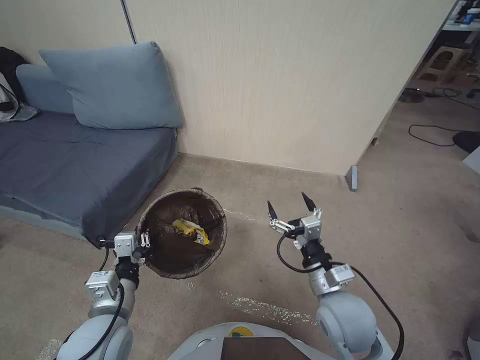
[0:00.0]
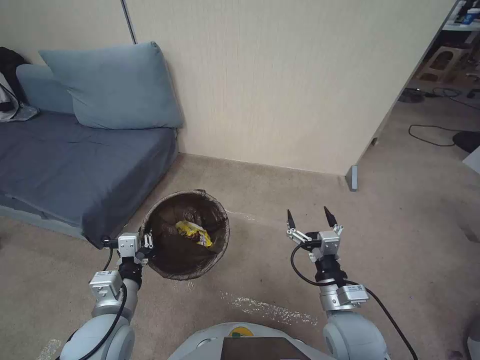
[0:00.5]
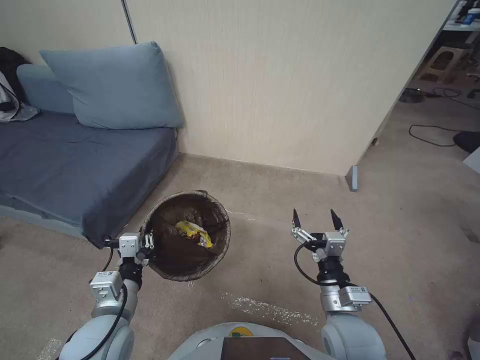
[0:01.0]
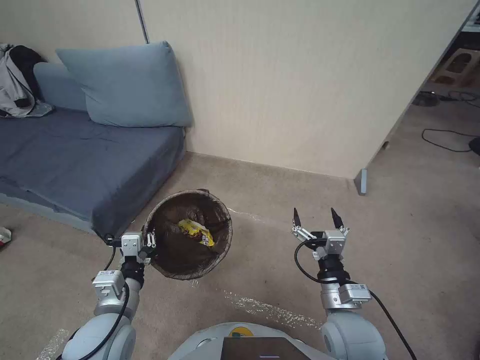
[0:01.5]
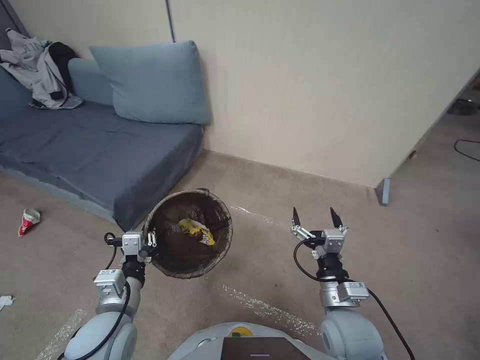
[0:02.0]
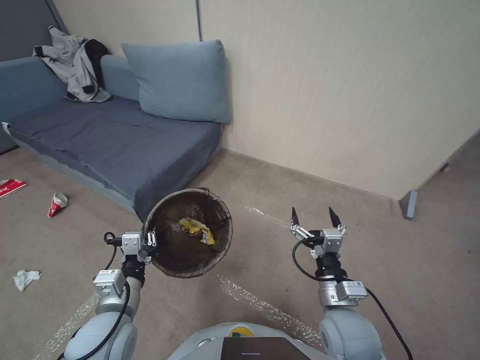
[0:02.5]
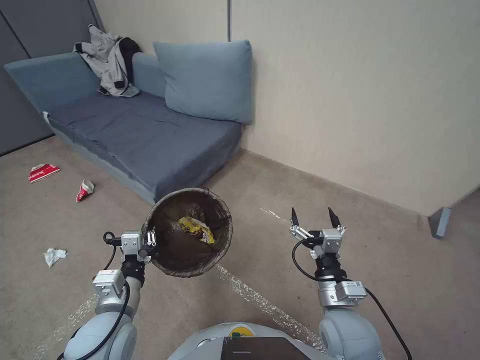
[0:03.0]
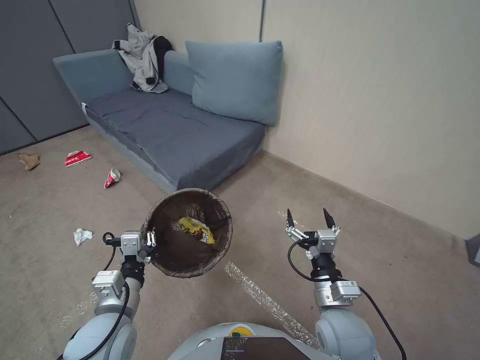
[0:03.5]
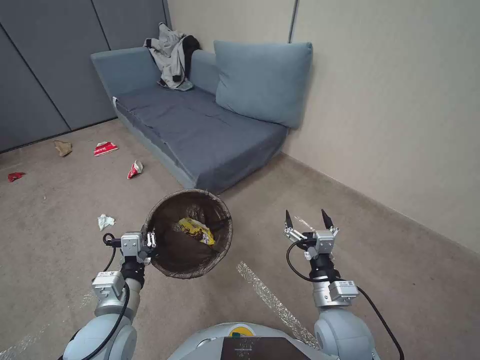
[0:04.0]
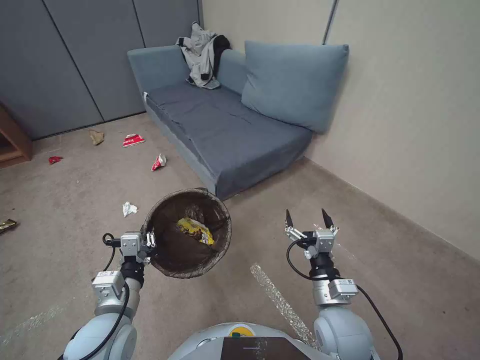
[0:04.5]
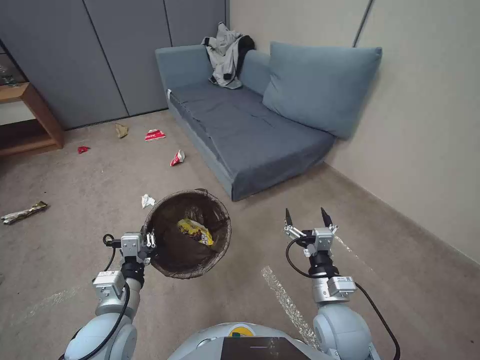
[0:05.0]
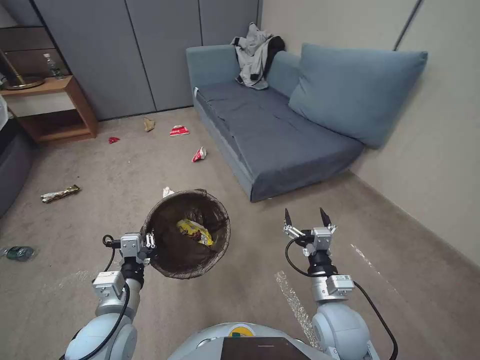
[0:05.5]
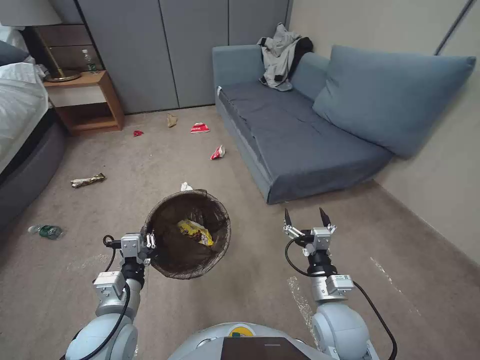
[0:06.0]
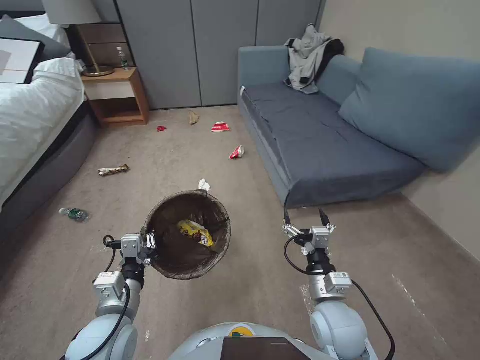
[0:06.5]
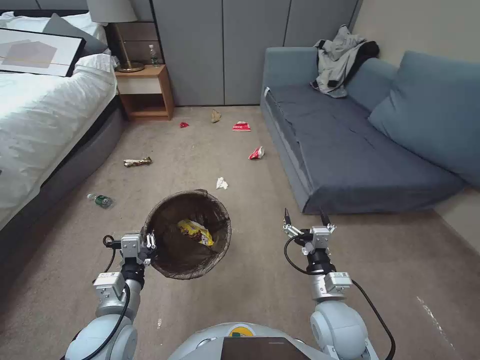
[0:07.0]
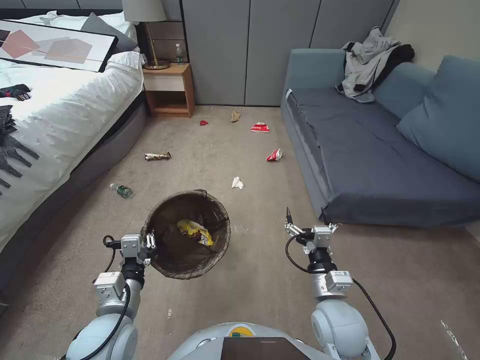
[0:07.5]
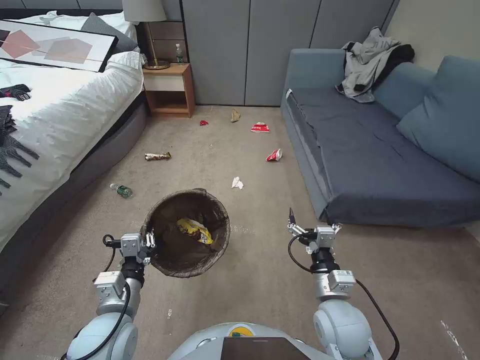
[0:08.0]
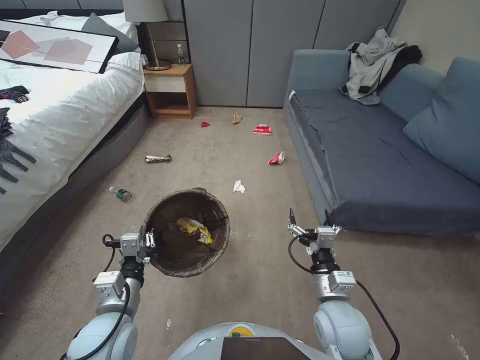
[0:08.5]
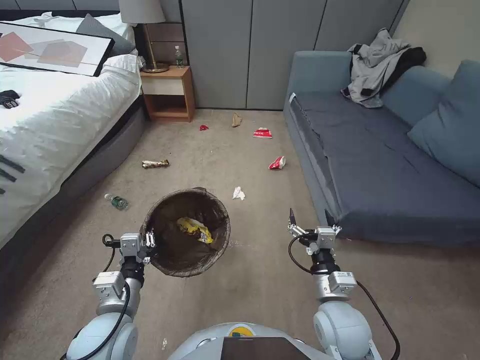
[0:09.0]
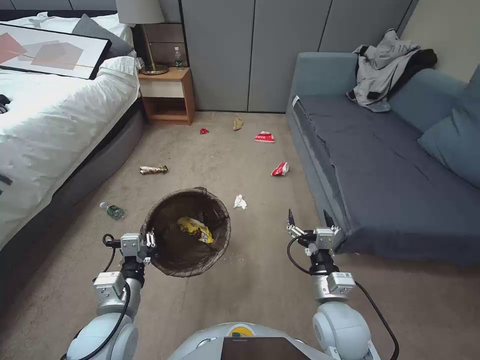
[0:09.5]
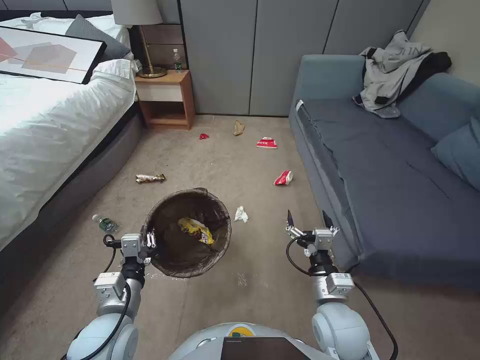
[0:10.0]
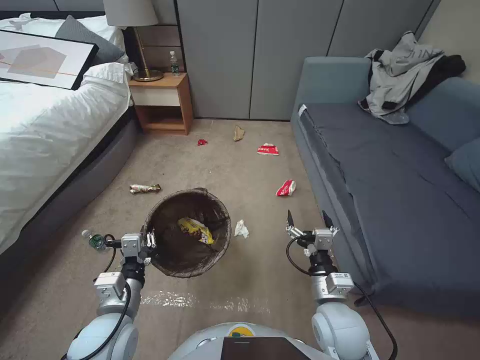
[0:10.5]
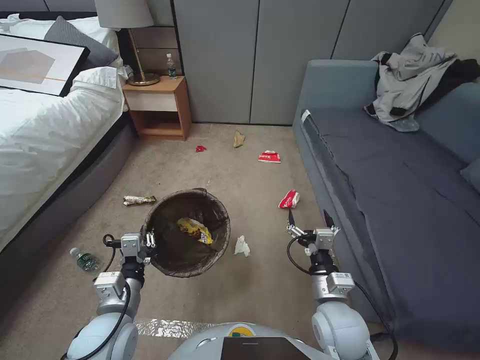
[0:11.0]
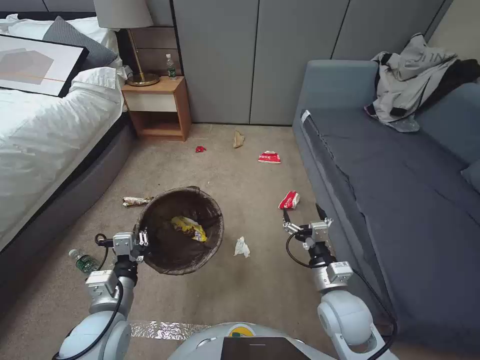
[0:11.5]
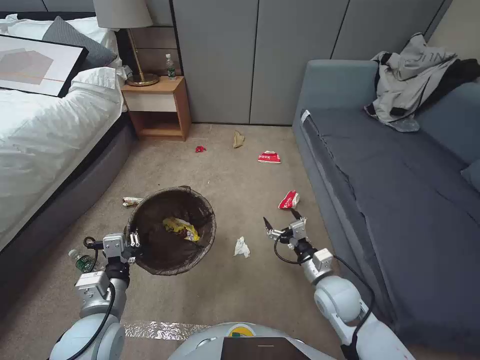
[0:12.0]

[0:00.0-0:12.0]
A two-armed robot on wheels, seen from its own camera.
Task of the whole recording: Pick up the trash bin, then pick up the garbage from the floor and place it into the trash bin.
0:10.0 to 0:12.0: The right gripper moves forward, approximately 5 cm.

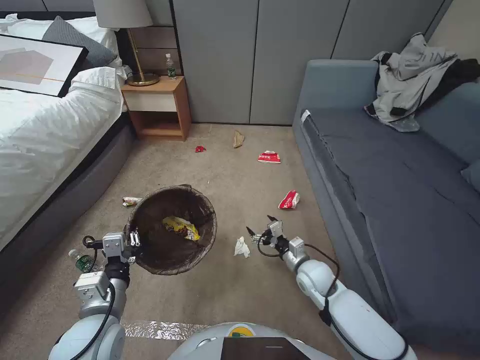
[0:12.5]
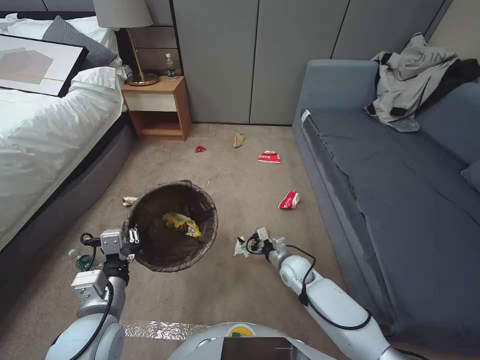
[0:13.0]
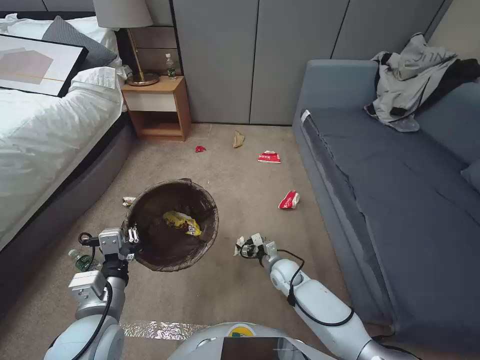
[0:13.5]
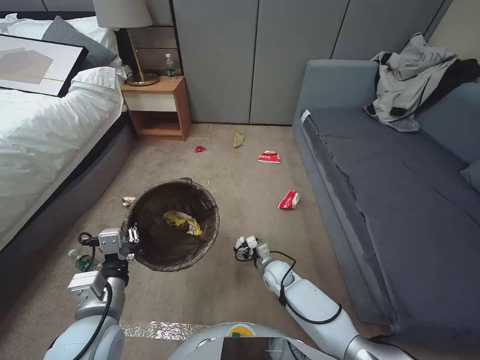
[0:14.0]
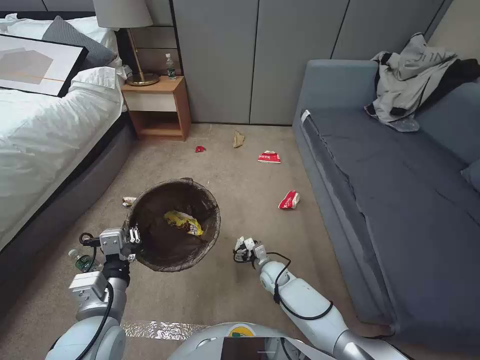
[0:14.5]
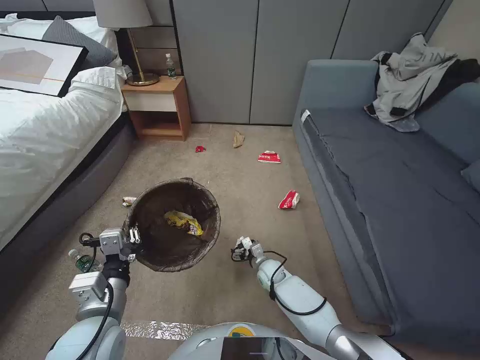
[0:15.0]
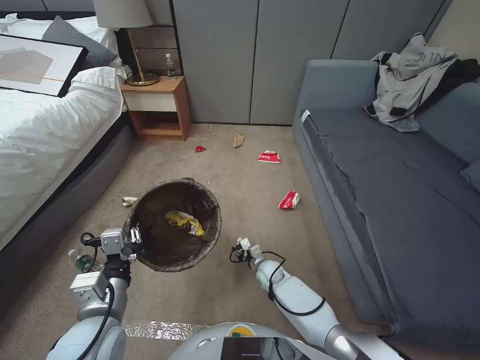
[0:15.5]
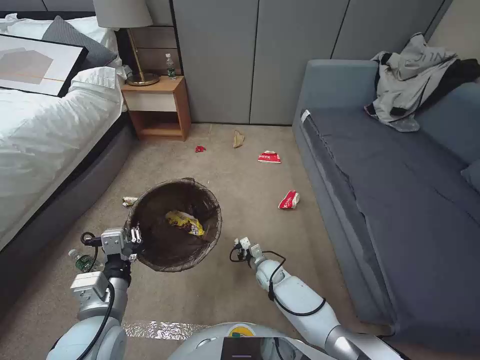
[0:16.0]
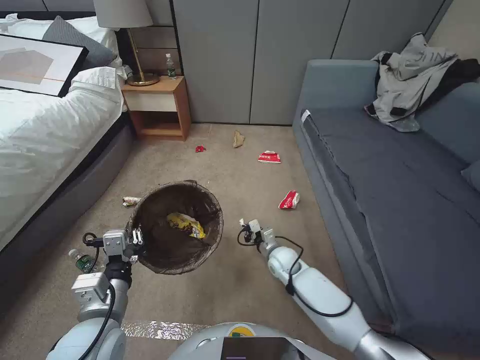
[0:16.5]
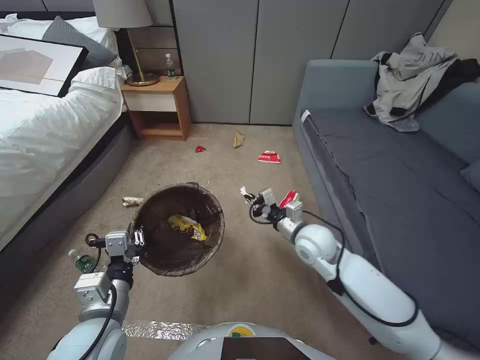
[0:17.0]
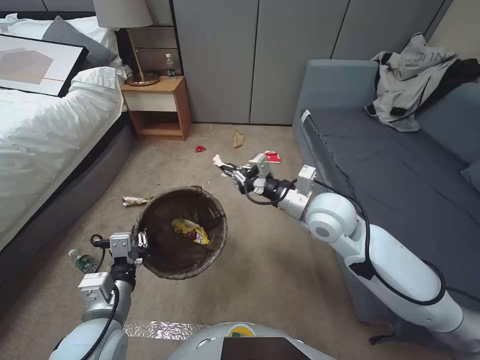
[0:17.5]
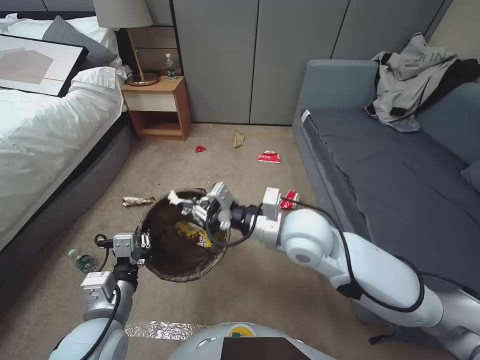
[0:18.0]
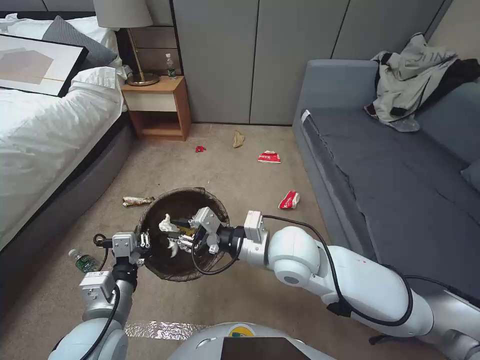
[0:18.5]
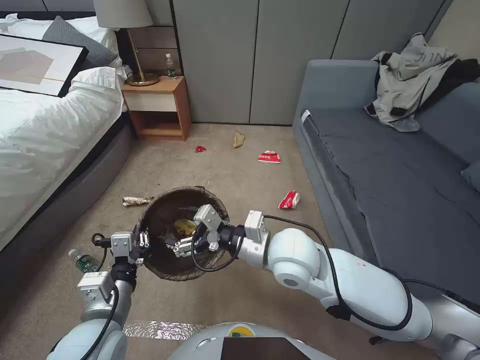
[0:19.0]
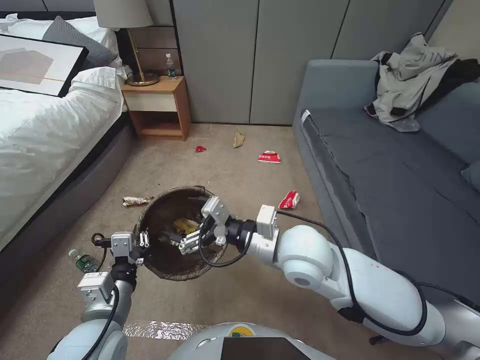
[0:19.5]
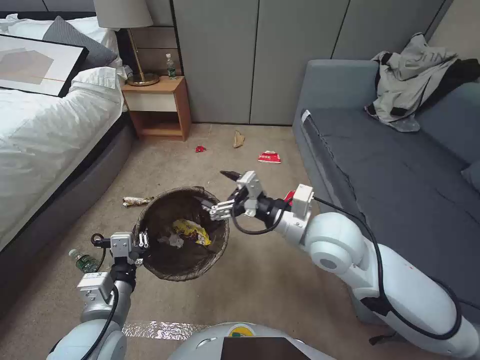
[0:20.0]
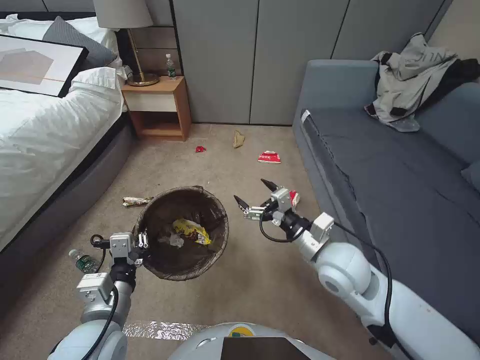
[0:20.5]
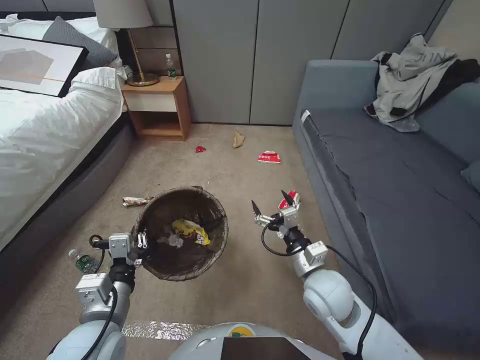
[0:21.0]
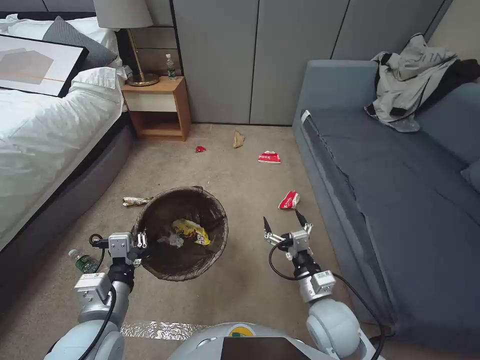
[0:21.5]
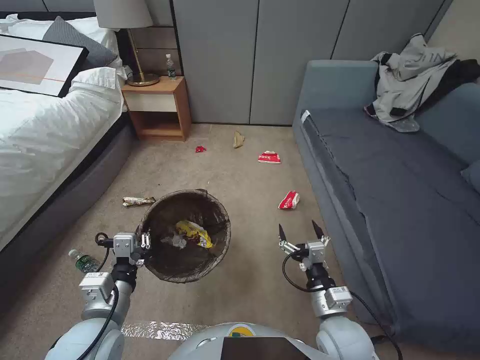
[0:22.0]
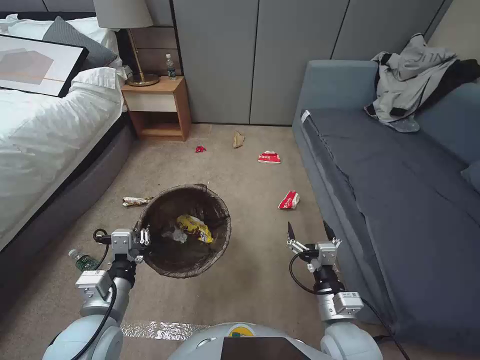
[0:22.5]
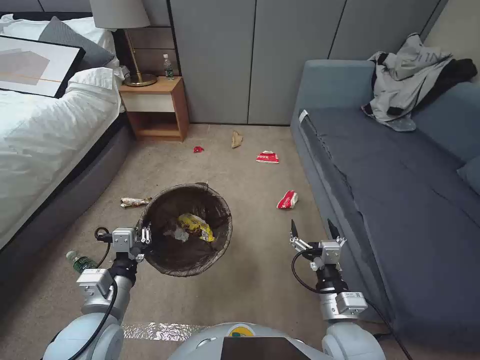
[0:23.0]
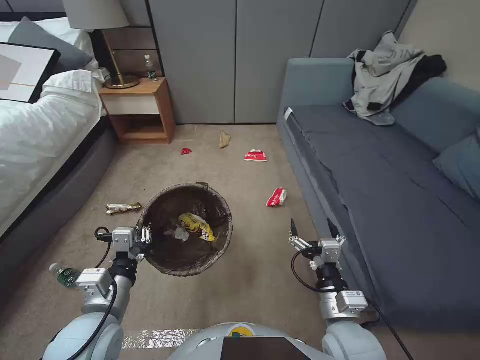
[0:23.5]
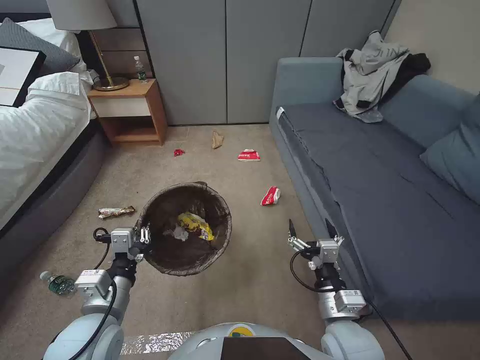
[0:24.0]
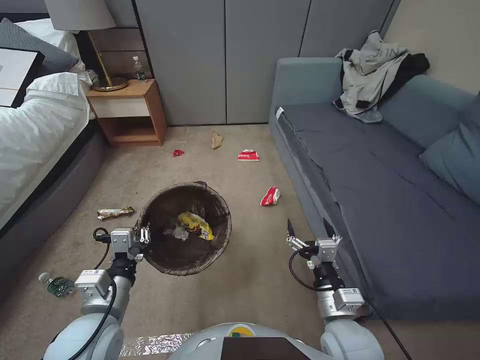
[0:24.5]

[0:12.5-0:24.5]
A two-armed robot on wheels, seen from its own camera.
Task of the whole recording: Pick up the trash bin, then pick up the garbage from the floor and place it into the trash bin.
0:12.5 to 0:14.5: The right gripper moves downward and to the left, some 15 cm.
0:14.5 to 0:16.5: The right gripper is displaced upward by about 5 cm, and closes.
0:16.5 to 0:18.5: The right gripper shifts some 30 cm upward.
0:18.5 to 0:20.5: The right gripper shifts some 10 cm to the right, and opens up.
0:20.5 to 0:22.5: The right gripper shifts about 15 cm backward and downward.

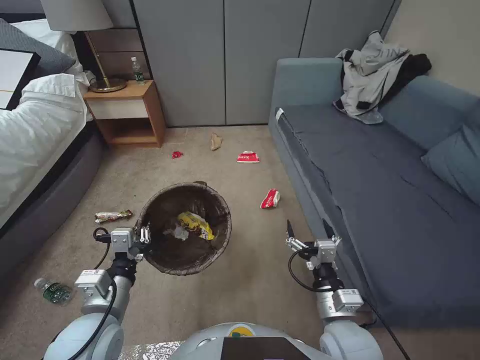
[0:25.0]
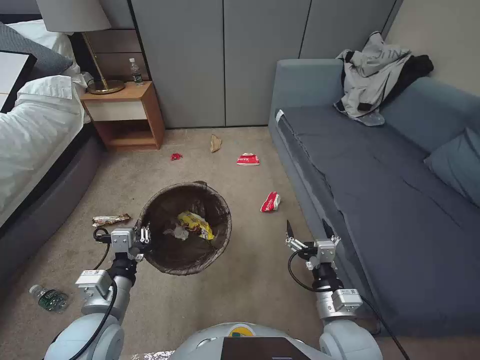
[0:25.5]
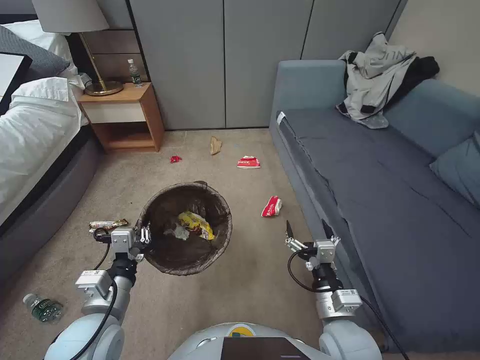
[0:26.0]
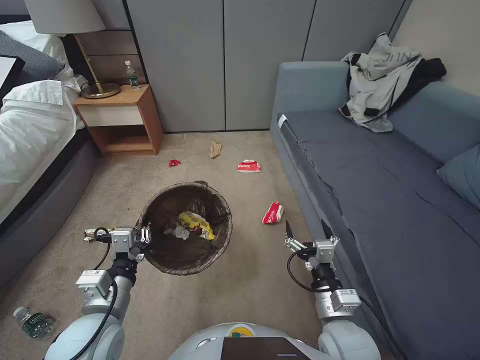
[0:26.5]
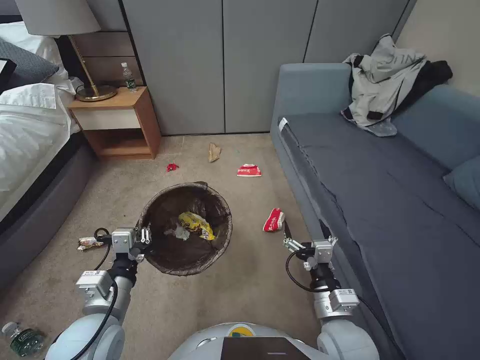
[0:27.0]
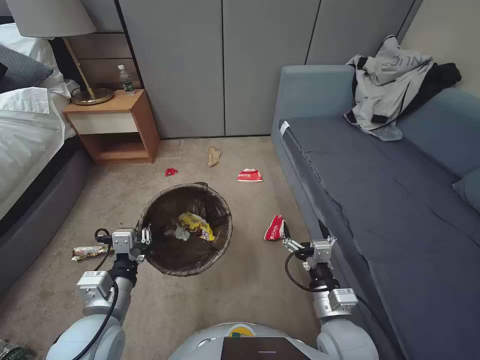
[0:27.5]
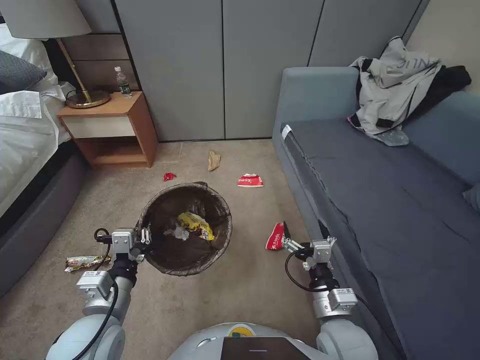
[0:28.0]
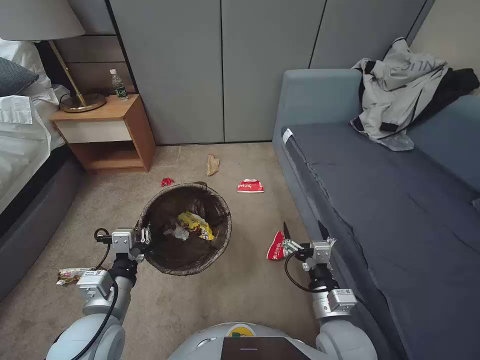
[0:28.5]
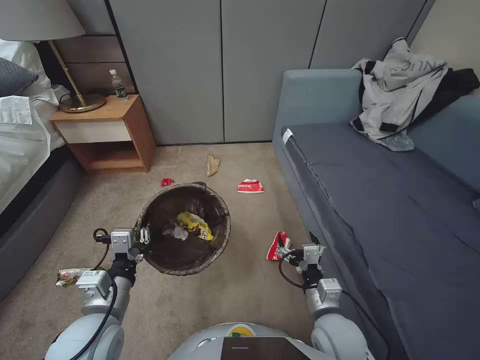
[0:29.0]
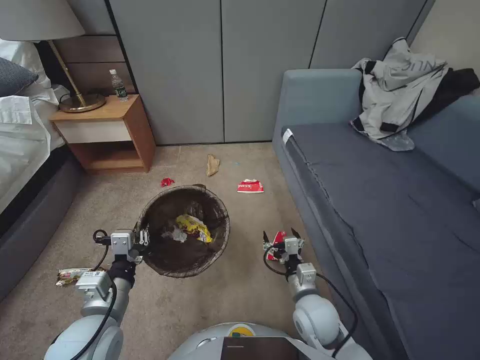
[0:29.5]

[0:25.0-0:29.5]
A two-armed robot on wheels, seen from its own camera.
Task of the whole recording: Pick up the trash bin, then pick up the garbage from the floor and place it into the trash bin.
0:25.0 to 0:27.0: Neither gripper changes place.
0:27.0 to 0:29.5: The right gripper moves downward, roughly 5 cm.
